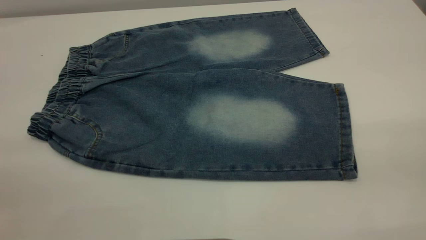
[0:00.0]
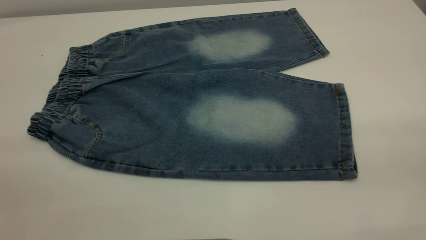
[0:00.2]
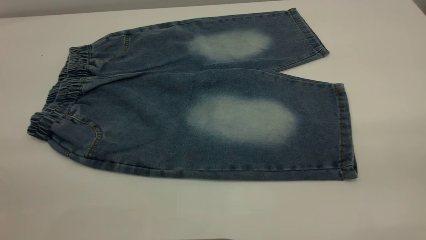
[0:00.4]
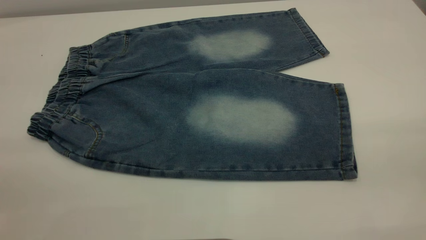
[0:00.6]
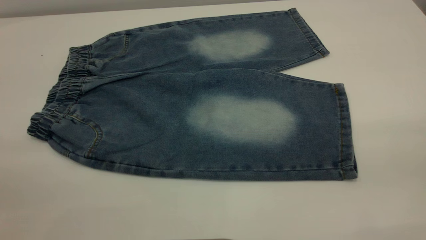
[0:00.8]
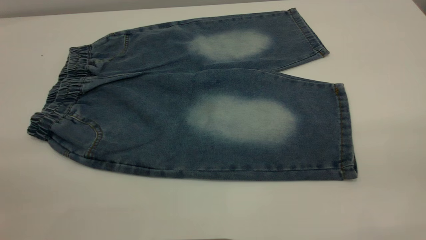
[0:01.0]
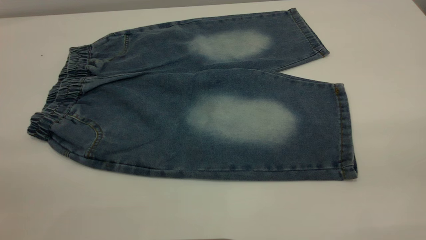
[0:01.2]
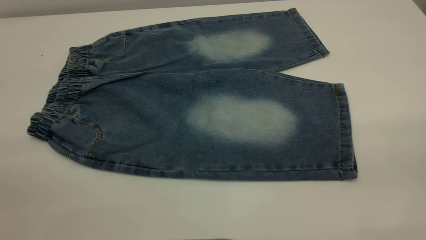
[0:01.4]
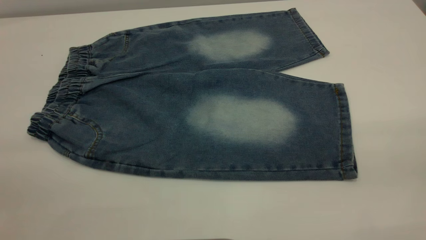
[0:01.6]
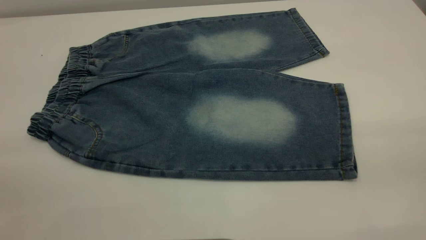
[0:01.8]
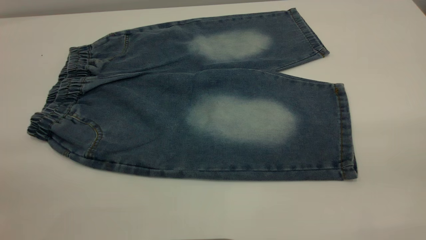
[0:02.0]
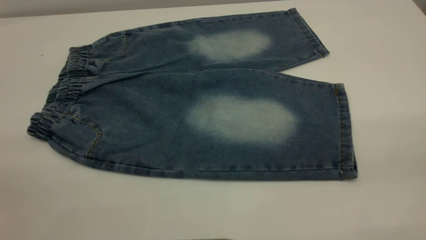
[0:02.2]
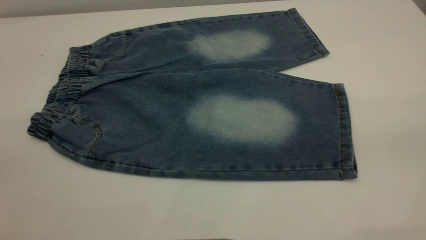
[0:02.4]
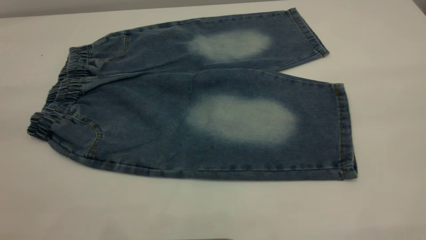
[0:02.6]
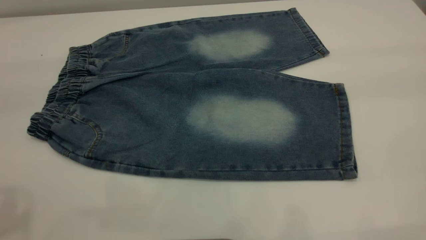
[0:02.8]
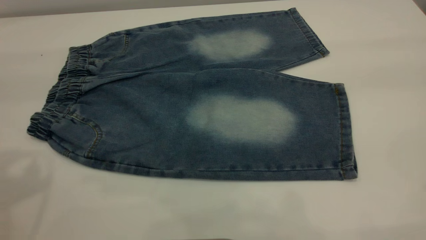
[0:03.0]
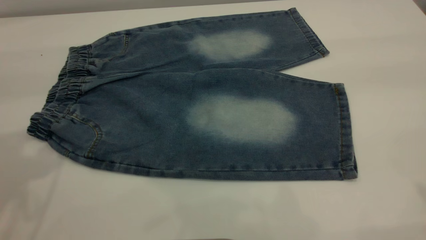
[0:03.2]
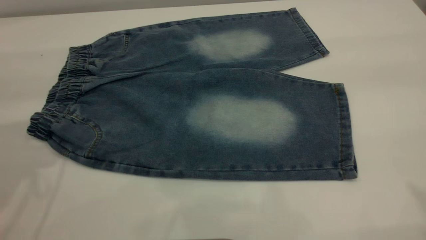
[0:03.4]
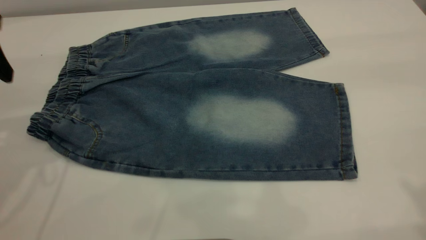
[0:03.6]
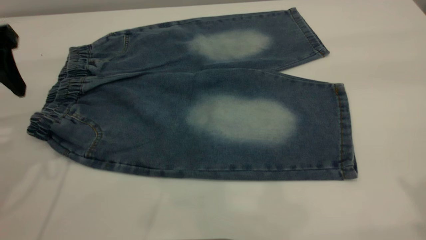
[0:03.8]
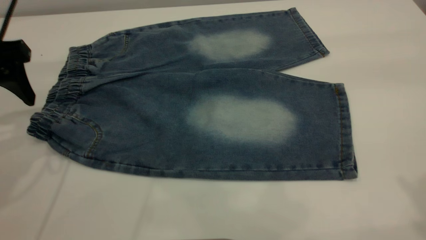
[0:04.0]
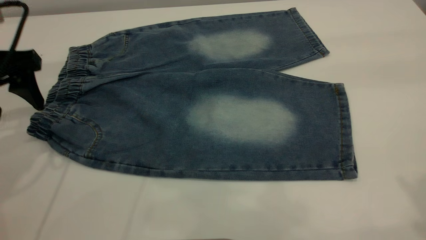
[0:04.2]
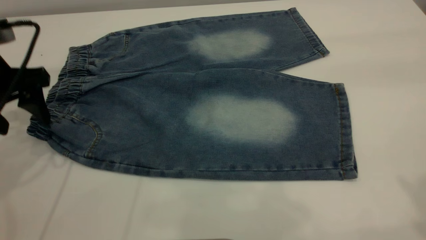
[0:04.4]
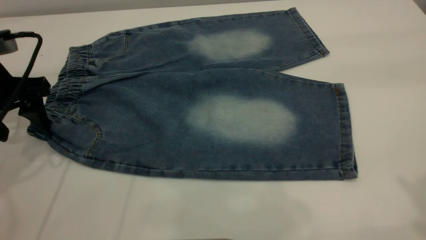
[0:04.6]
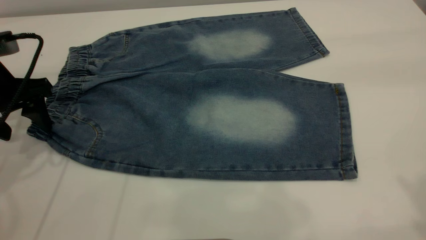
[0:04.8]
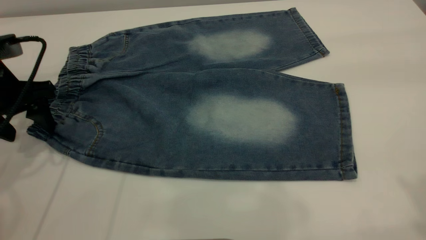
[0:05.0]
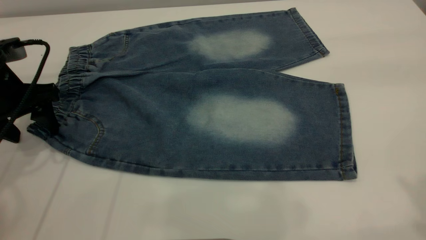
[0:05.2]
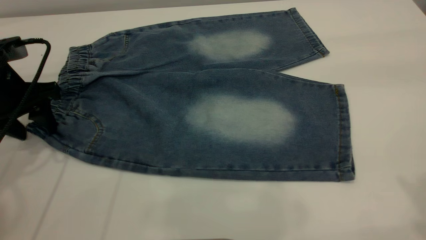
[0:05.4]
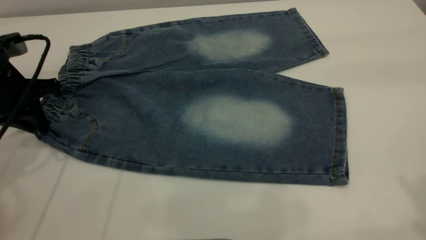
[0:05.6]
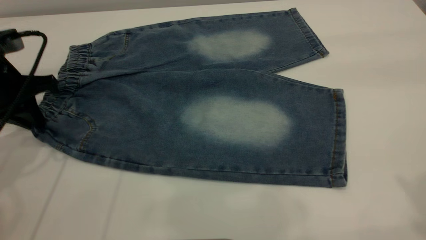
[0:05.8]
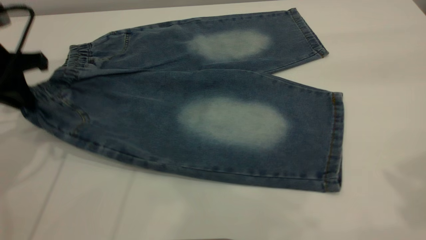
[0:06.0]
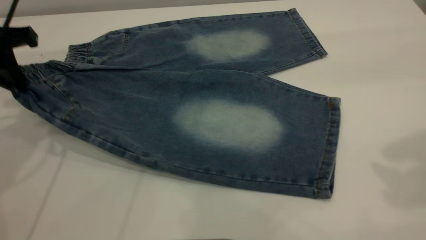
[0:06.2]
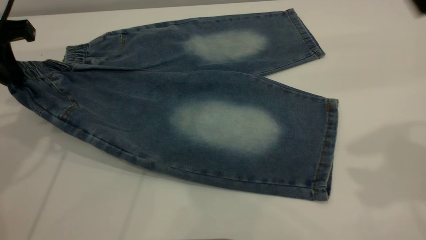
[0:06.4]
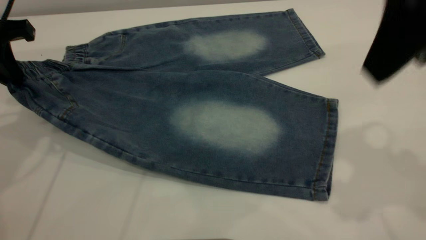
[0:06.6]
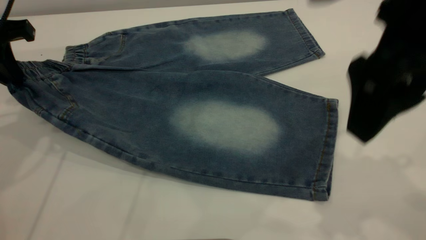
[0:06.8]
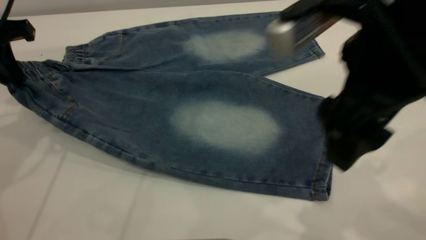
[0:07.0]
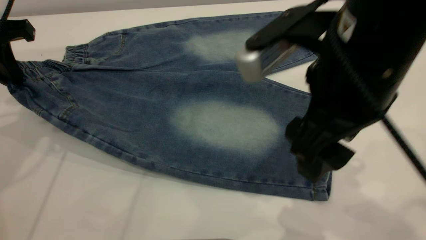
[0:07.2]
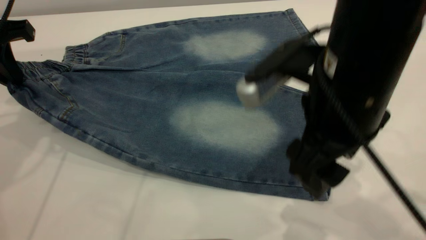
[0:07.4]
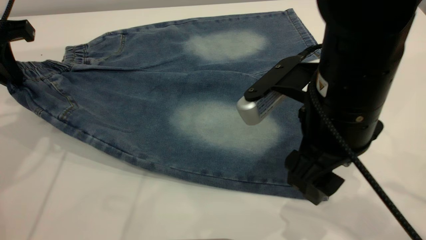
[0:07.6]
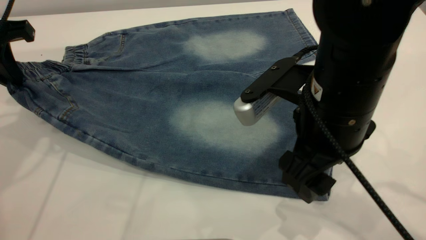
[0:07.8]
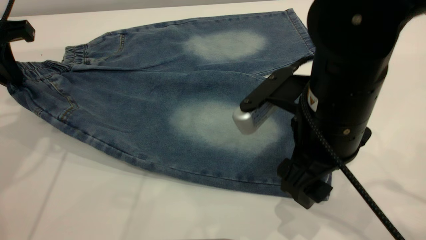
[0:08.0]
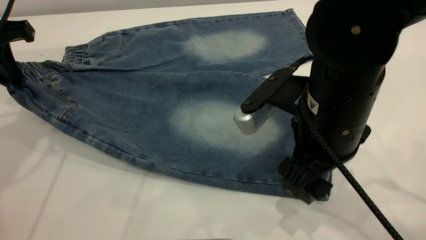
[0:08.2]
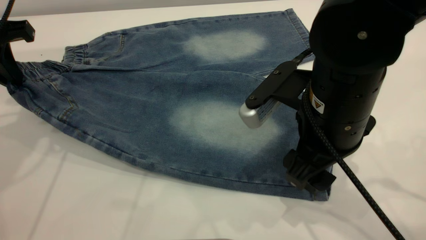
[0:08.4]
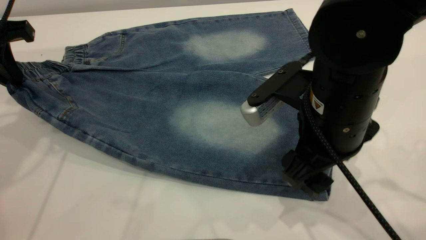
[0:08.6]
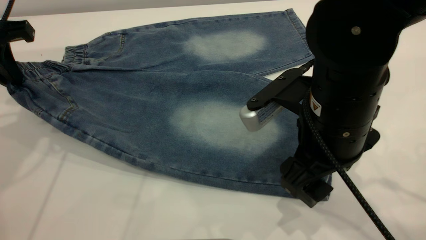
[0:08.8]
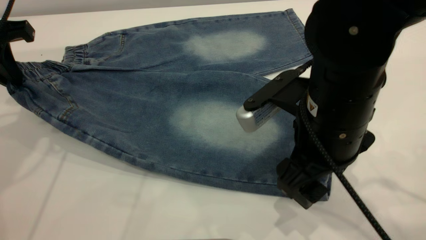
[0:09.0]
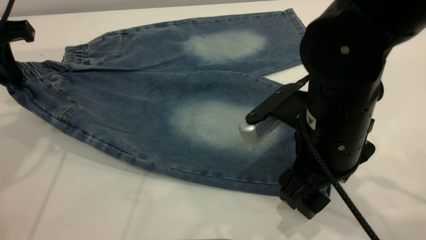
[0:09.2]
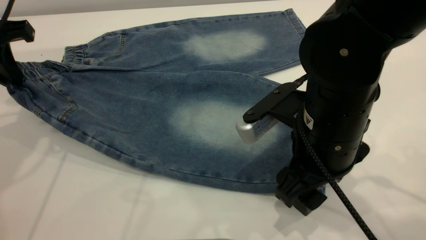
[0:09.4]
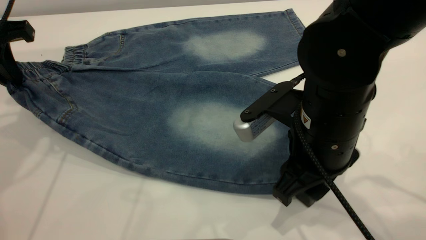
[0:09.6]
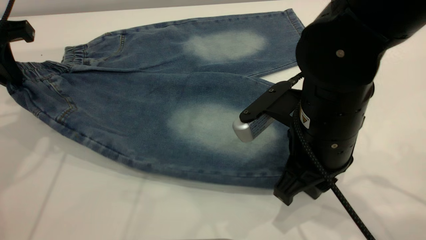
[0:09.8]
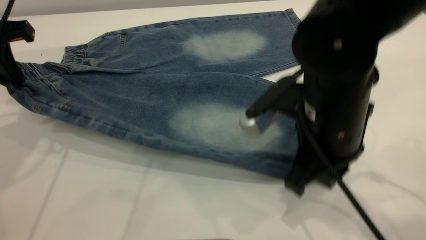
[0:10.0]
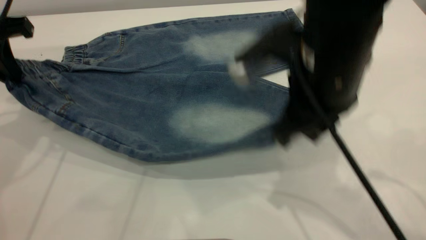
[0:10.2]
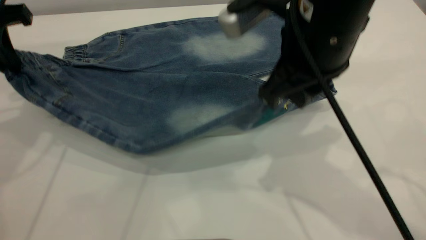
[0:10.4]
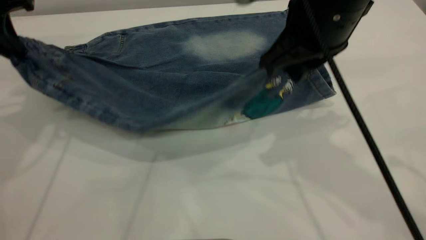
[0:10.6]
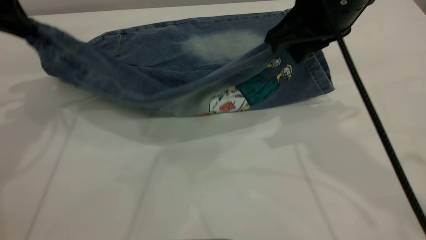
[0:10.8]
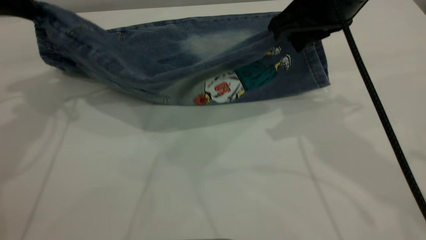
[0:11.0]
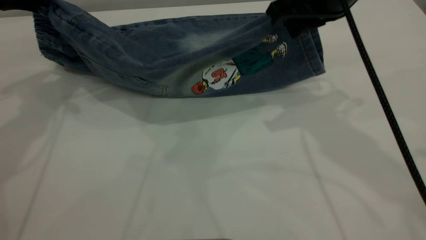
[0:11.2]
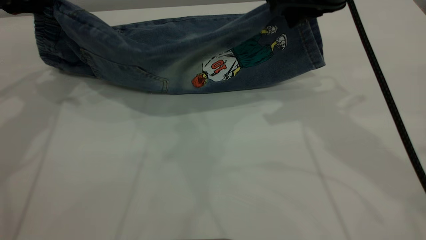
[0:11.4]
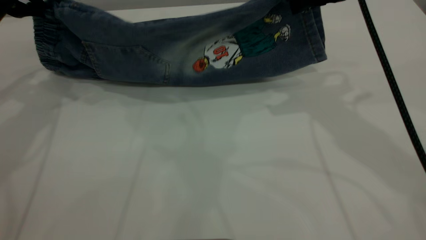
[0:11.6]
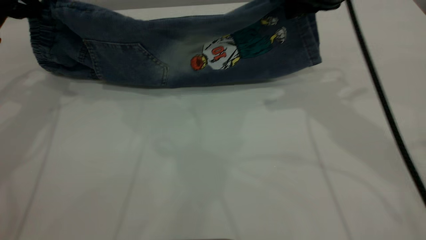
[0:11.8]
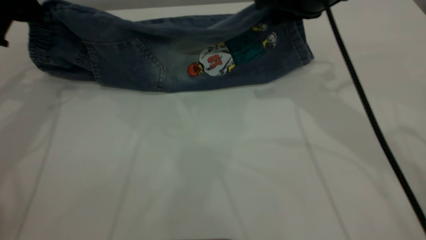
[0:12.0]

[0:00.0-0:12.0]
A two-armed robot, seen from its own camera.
0:00.0 to 0:01.6: The two grippers keep their place.
0:03.0 to 0:04.4: The left gripper heads downward and forward, covering roughly 20 cm.
0:04.4 to 0:06.0: The left gripper closes up.
0:06.0 to 0:07.6: The right gripper shifts approximately 30 cm downward and to the left.
0:07.6 to 0:09.0: The grippers stay close to where they were, moving slightly.
0:09.0 to 0:10.4: The right gripper heads upward, covering some 10 cm, and closes.
0:10.4 to 0:12.0: The right gripper shifts about 10 cm forward; the left gripper heads forward, covering approximately 5 cm.

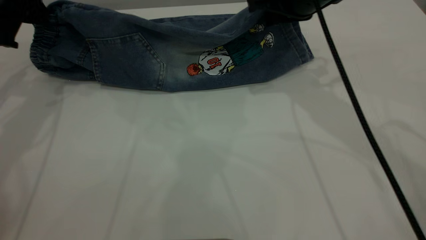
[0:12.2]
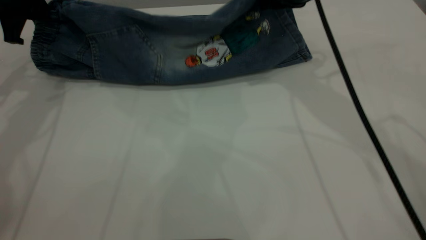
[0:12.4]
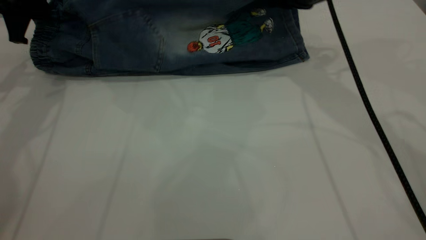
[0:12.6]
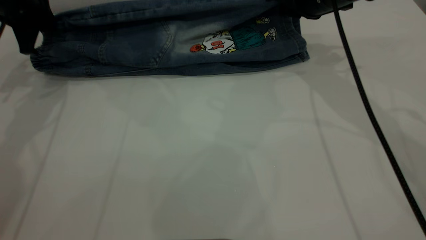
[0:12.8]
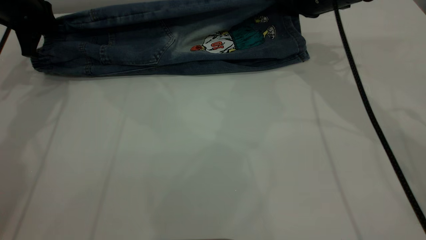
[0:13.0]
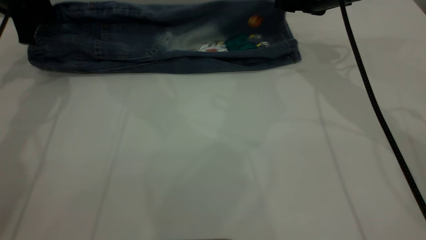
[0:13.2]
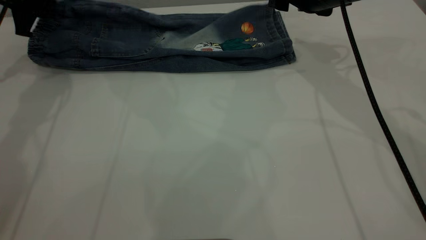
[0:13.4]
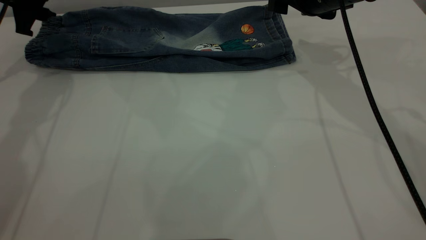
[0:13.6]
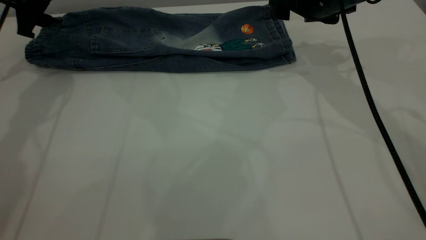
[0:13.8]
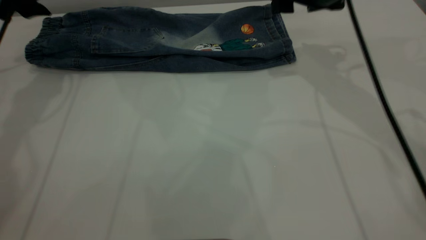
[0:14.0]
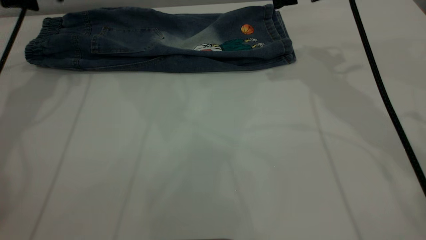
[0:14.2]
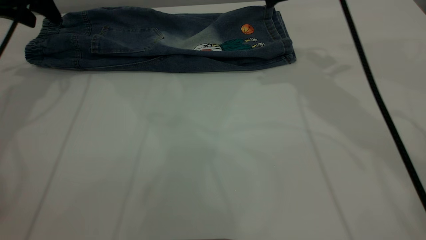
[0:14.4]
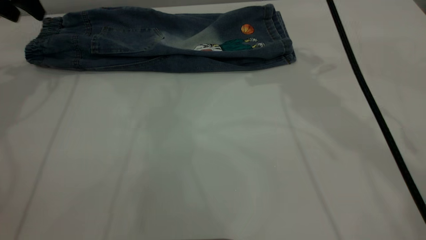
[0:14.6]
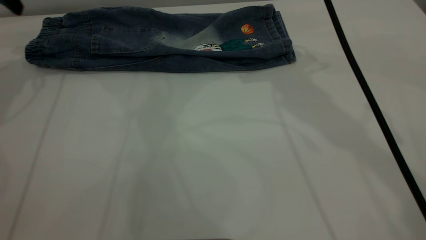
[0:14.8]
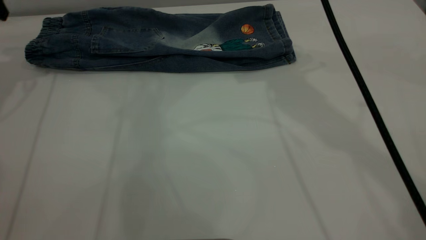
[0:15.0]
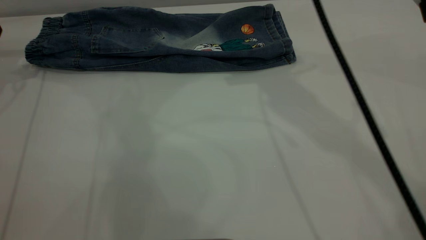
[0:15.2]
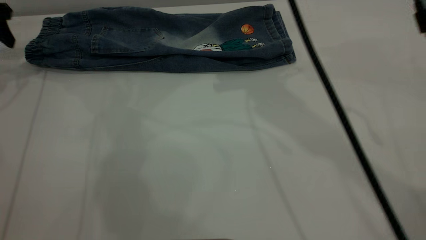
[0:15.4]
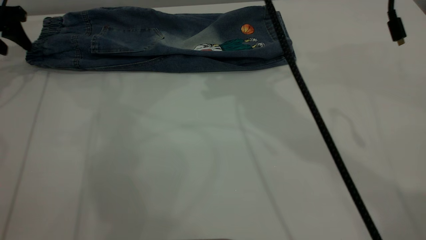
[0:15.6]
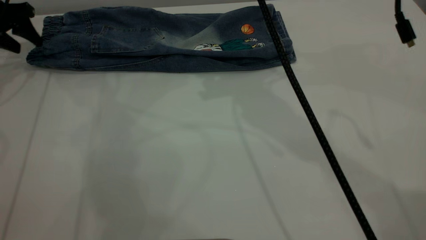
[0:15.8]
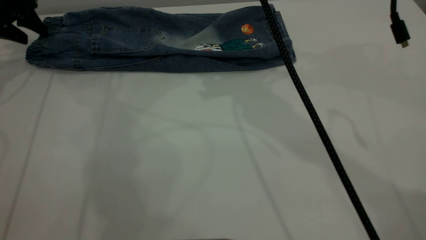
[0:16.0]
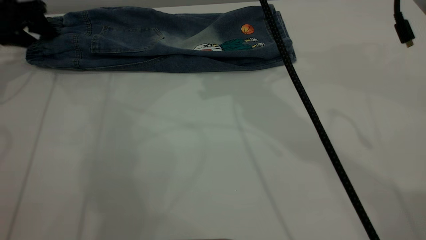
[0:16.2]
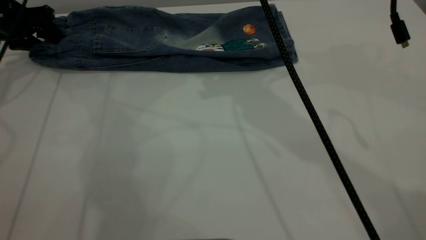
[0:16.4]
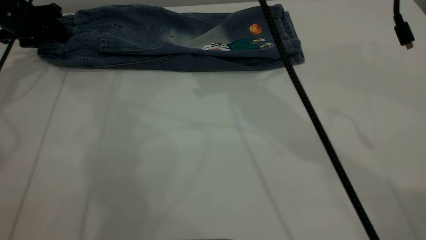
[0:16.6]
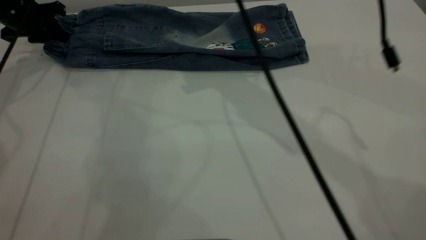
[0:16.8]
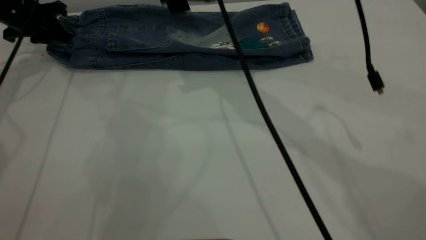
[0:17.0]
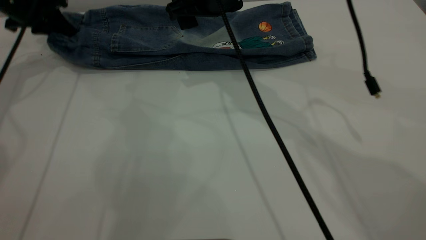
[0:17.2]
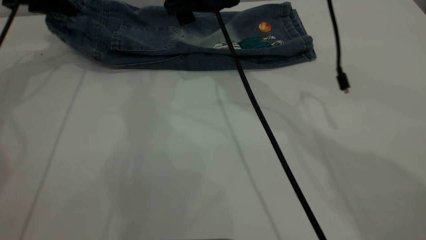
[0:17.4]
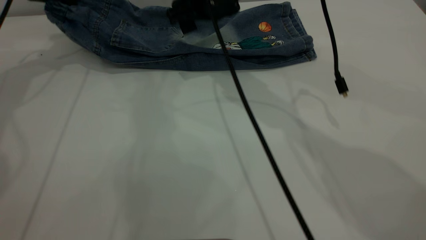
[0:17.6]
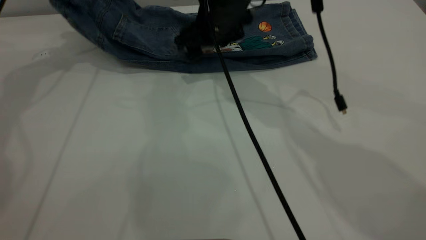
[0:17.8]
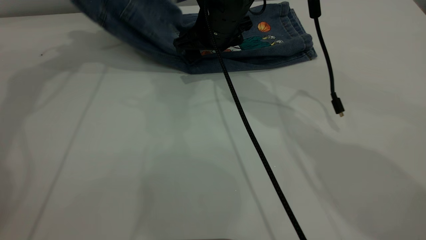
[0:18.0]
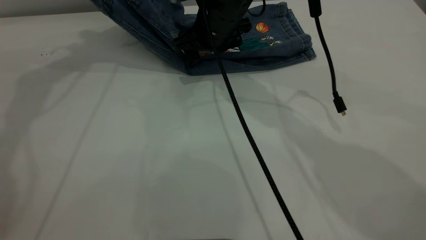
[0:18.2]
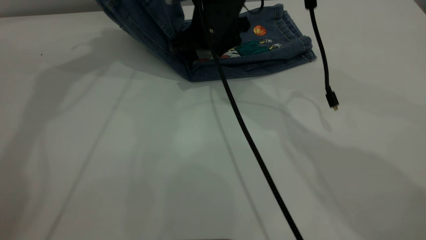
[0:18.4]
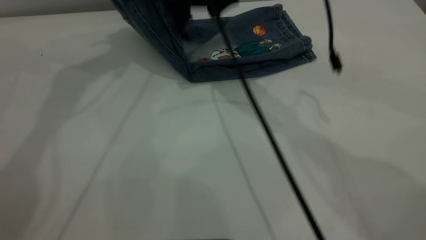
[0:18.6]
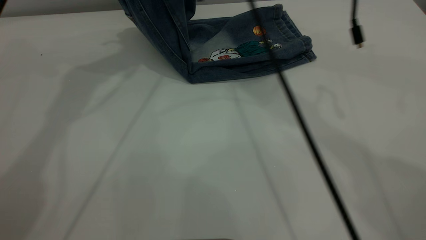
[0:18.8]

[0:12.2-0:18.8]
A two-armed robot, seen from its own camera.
Step, 0:12.2 to 0:14.2: Fold the bottom of the pants upward.
0:12.2 to 0:13.8: The left gripper shifts some 5 cm forward, and opens its fingers; the right gripper moves some 5 cm, and opens its fingers.
0:13.8 to 0:15.4: The right gripper heads upward and to the left, covering about 15 cm; the left gripper goes roughly 10 cm to the left.
0:15.4 to 0:17.2: The left gripper moves to the right, approximately 5 cm, and closes its fingers. Meanwhile the right gripper shifts roughly 10 cm downward.
0:17.2 to 0:18.8: The right gripper goes roughly 5 cm upward, while the left gripper heads upward and to the right, covering roughly 25 cm.
